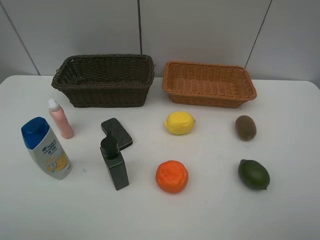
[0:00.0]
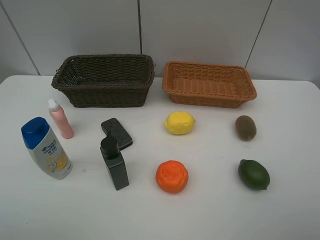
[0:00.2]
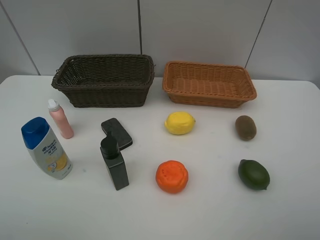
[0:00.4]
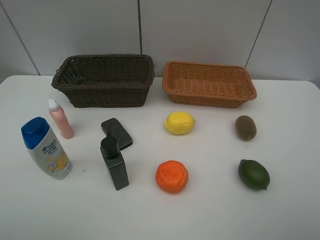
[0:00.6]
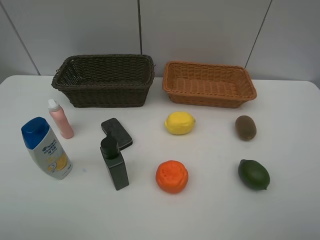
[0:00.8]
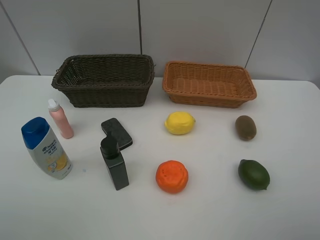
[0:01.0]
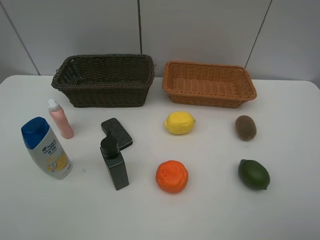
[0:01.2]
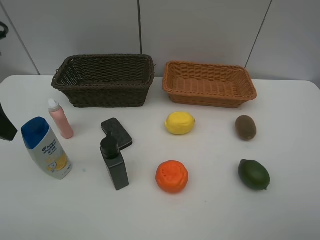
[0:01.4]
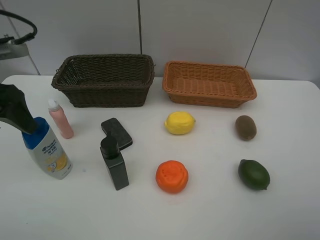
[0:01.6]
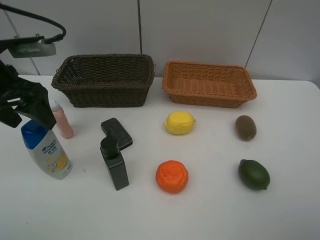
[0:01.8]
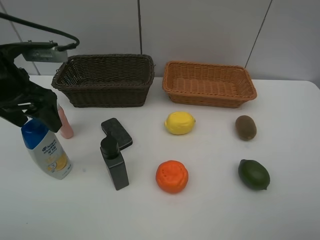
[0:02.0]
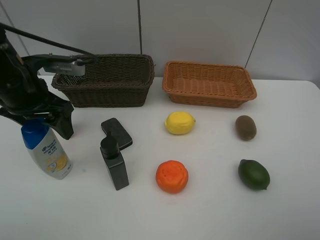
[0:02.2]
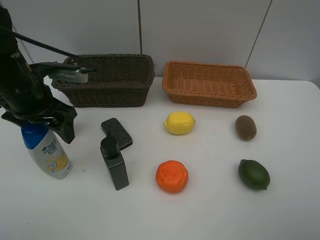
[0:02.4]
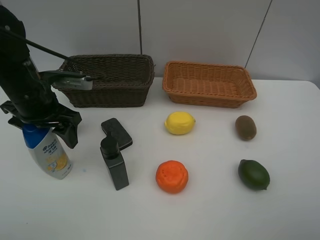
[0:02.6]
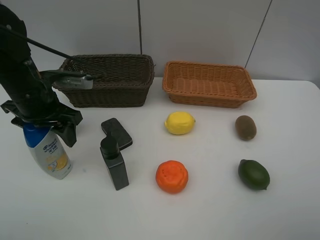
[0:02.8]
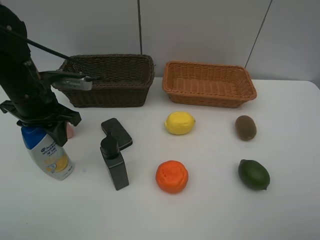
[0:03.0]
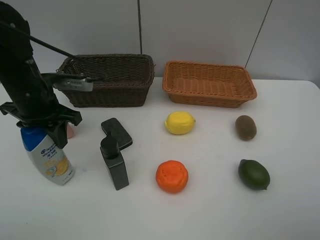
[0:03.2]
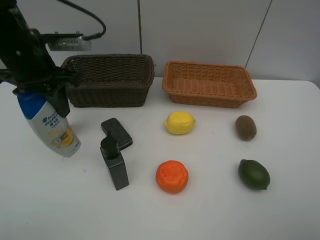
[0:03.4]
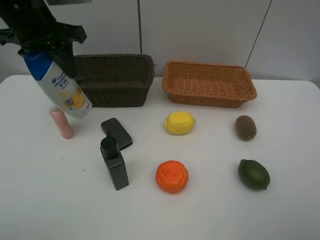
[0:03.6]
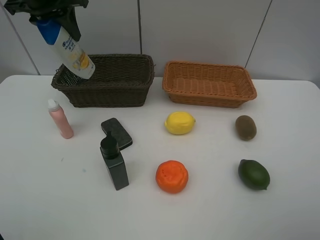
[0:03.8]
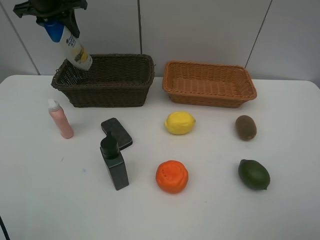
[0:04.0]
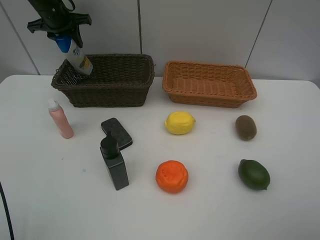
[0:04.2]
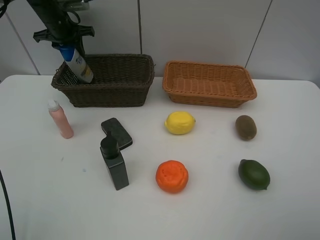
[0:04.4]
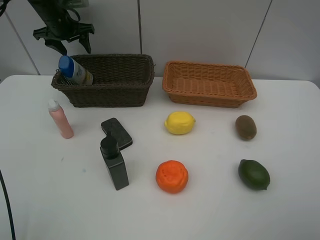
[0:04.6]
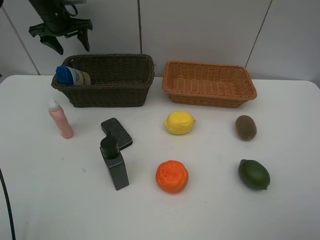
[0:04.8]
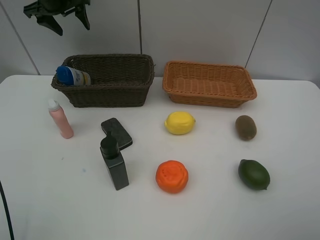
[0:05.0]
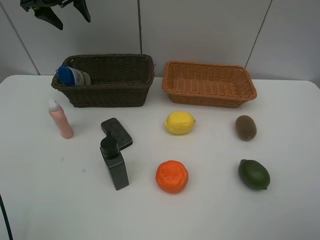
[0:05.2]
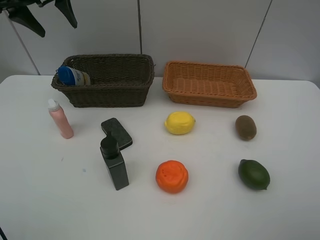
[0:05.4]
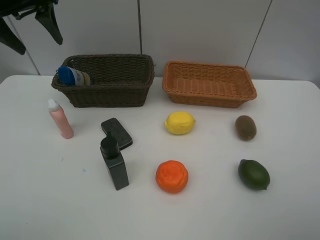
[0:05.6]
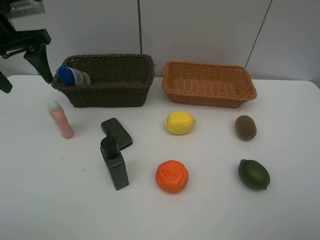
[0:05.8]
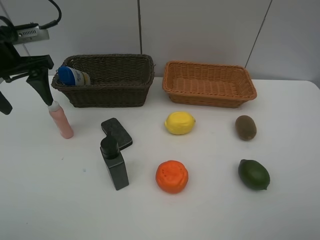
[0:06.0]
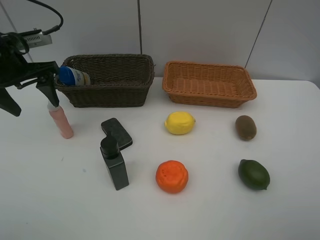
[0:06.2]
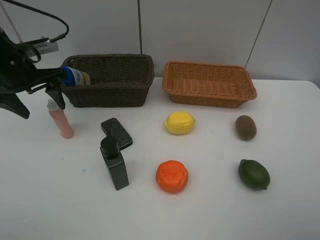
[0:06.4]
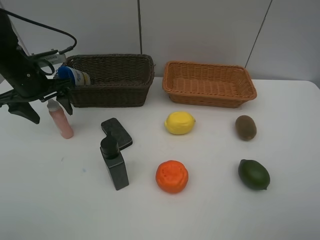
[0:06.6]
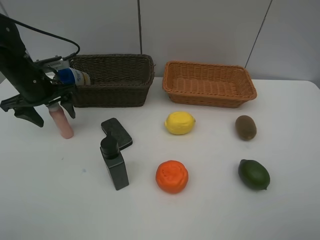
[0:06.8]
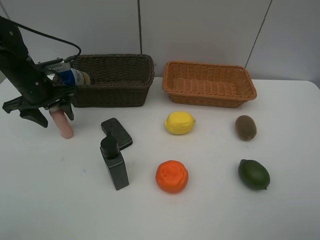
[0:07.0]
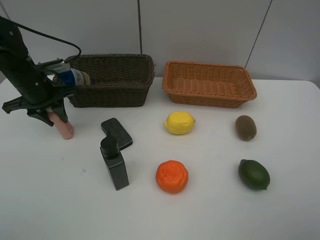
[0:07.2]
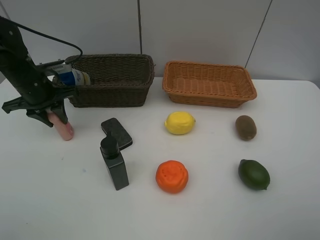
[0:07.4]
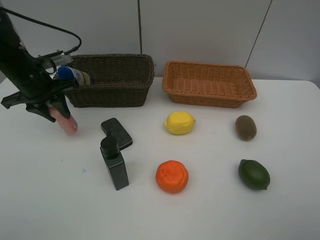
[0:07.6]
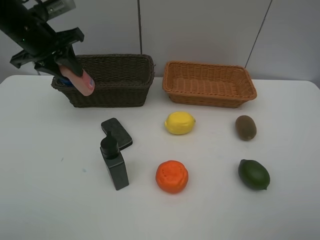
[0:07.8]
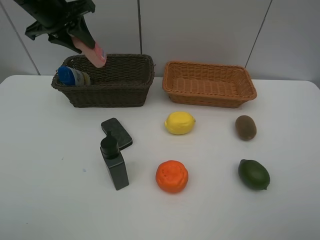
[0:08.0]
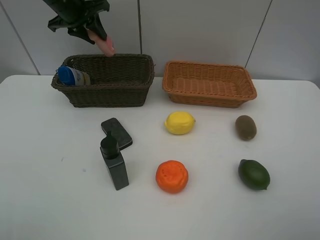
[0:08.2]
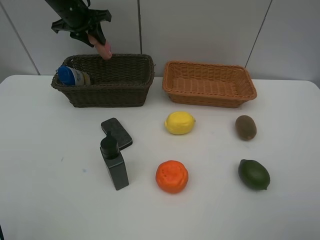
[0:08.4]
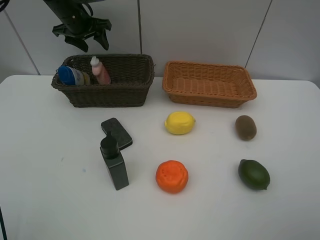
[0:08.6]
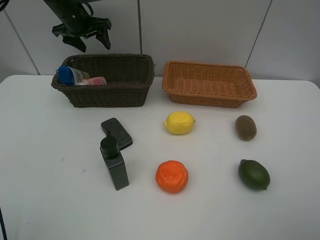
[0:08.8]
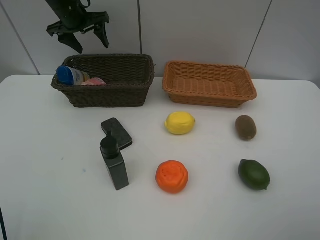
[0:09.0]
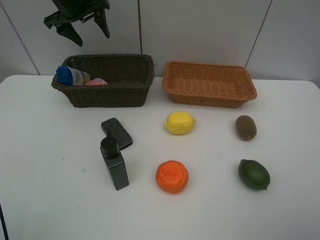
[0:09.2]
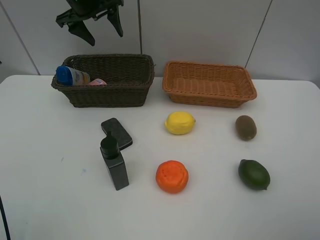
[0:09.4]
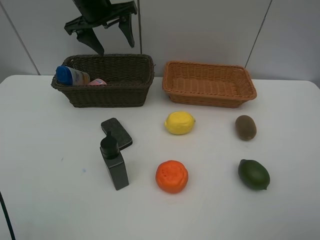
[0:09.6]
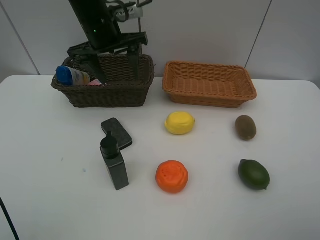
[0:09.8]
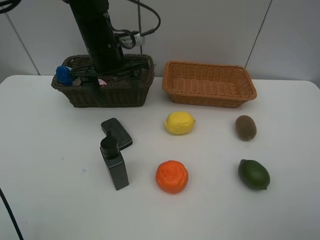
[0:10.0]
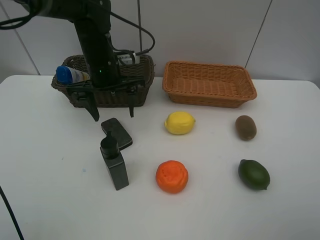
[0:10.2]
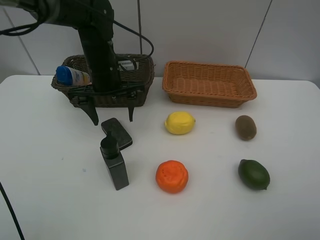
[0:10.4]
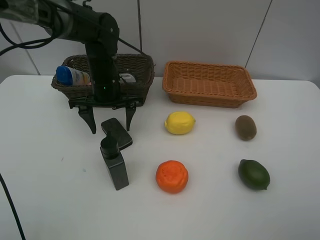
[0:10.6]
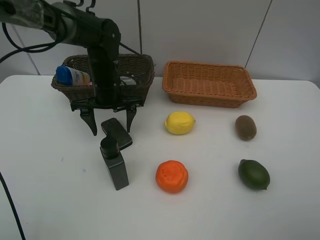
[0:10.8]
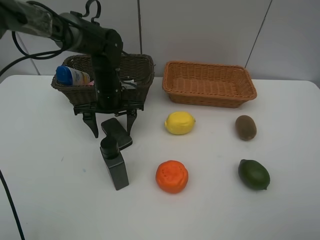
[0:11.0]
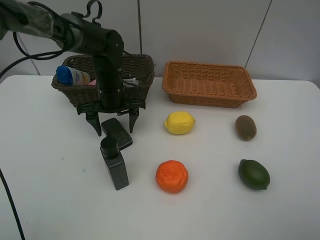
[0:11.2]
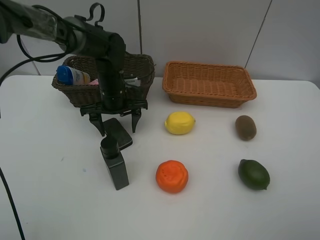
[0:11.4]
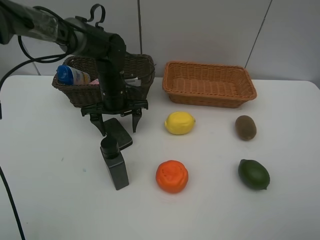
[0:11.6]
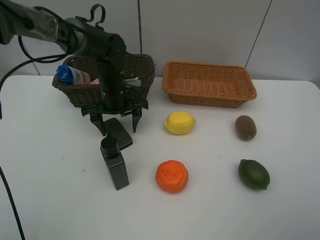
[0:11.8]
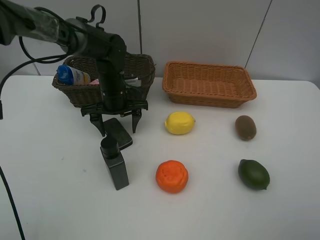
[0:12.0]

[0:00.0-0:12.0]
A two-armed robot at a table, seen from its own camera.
Task of the whole recording: Place multiple objects separately in different baskets.
Step, 0:00.0 to 0:03.2: Pick up the shampoo with left gripper.
Step, 0:03.4 to 0:04.8: Place the shampoo in the dark basket with left gripper.
Step, 0:05.0 to 0:07.6: Pick up the laundry detergent with left gripper.
Step, 0:07.8 to 0:08.8: Place the laundry detergent in the dark basket with left gripper.
0:00.0 to 0:01.6: The left gripper is displaced forward by approximately 25 cm.
0:01.6 to 0:03.0: The left gripper moves downward and to the right, roughly 10 cm, and closes.
0:03.0 to 0:04.4: The left gripper goes roughly 25 cm forward.
0:04.4 to 0:06.0: The left gripper moves backward, some 25 cm, and opens up.
0:06.0 to 0:07.6: The left gripper goes some 5 cm downward, and closes its fingers.
0:07.6 to 0:09.0: The left gripper goes approximately 20 cm forward and upward, and opens up.
0:09.0 to 0:10.4: The left gripper is displaced backward, to the right and downward by some 20 cm.
0:10.4 to 0:12.0: The left gripper is displaced downward by some 5 cm.

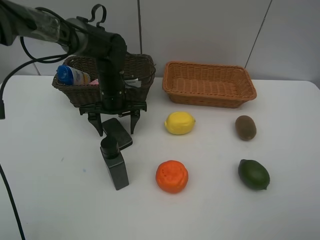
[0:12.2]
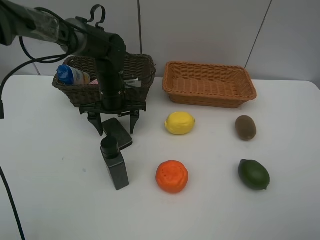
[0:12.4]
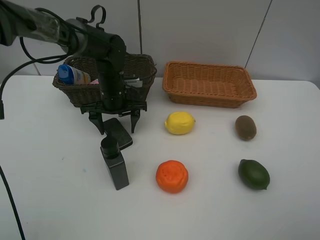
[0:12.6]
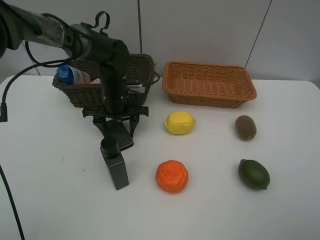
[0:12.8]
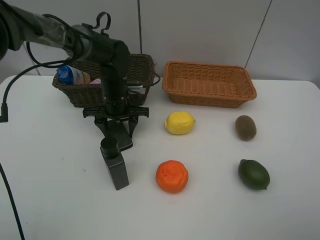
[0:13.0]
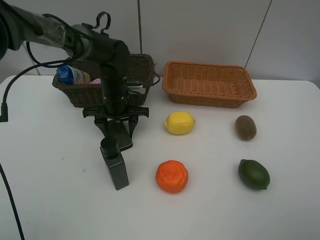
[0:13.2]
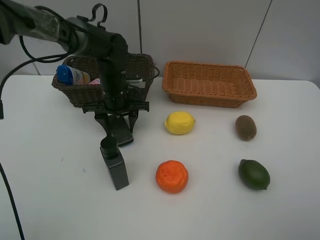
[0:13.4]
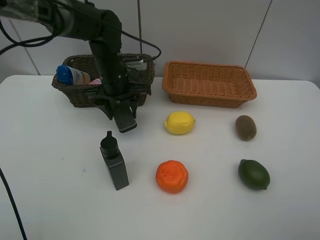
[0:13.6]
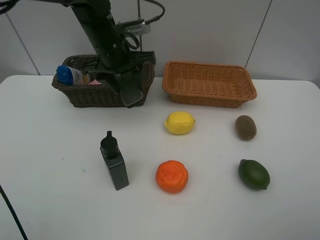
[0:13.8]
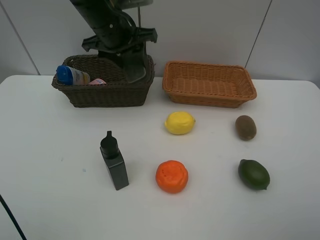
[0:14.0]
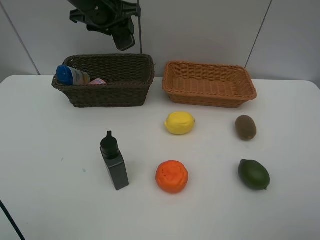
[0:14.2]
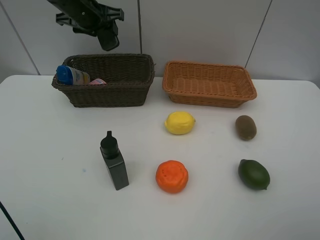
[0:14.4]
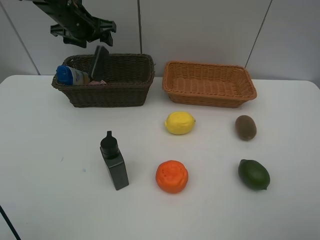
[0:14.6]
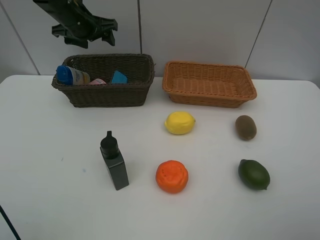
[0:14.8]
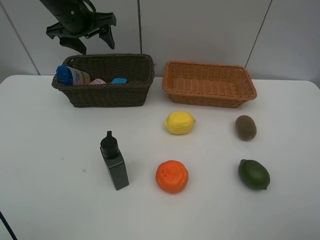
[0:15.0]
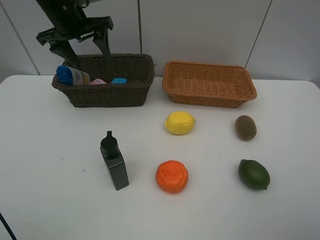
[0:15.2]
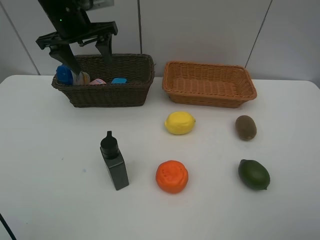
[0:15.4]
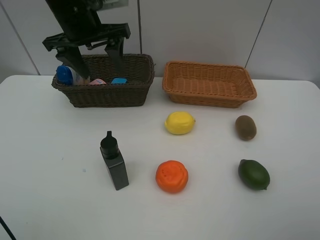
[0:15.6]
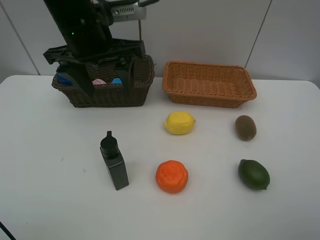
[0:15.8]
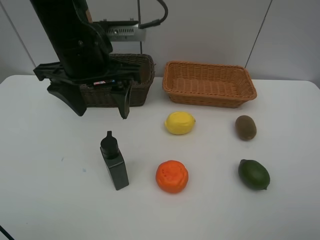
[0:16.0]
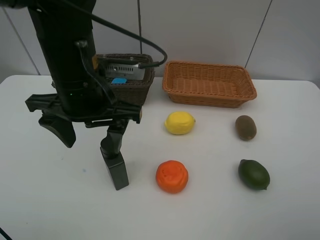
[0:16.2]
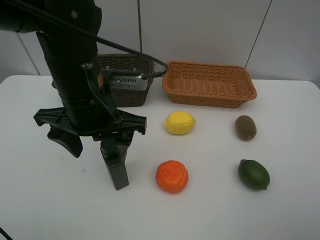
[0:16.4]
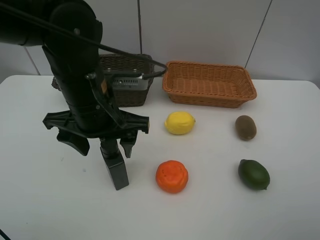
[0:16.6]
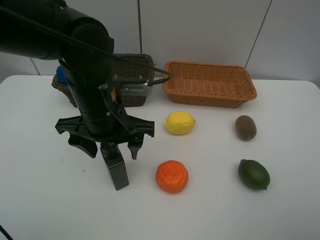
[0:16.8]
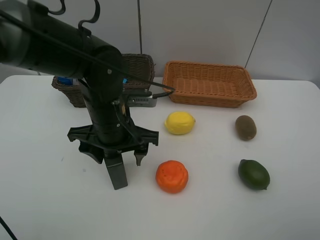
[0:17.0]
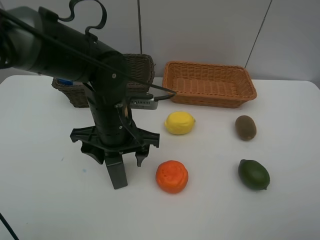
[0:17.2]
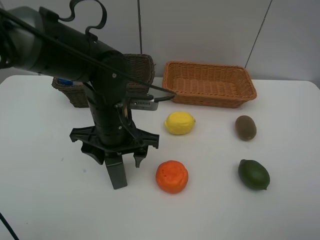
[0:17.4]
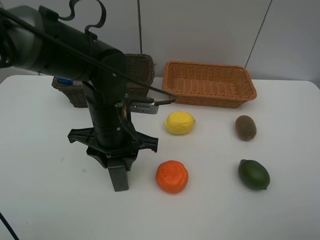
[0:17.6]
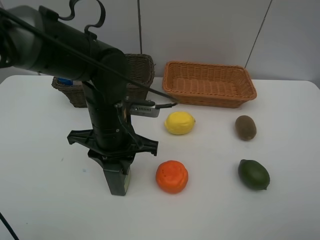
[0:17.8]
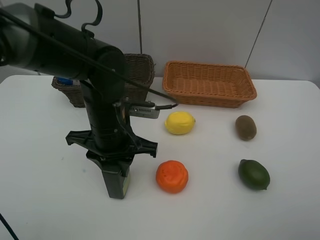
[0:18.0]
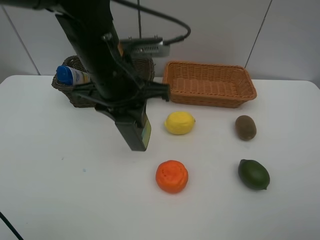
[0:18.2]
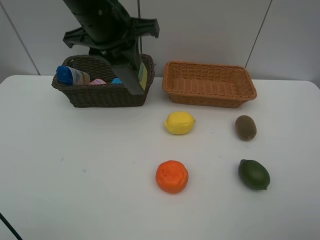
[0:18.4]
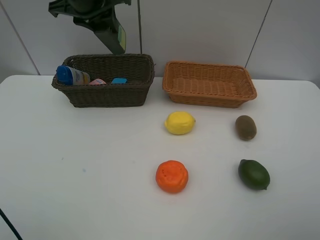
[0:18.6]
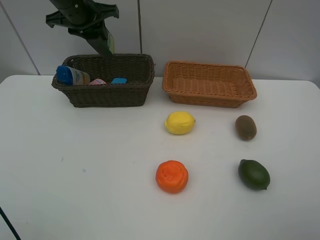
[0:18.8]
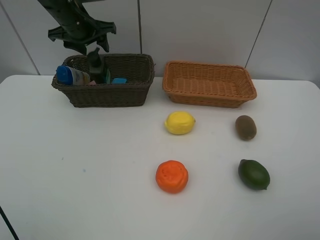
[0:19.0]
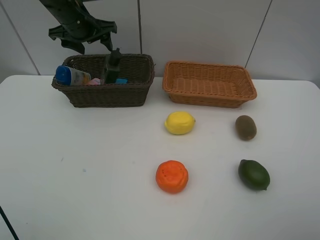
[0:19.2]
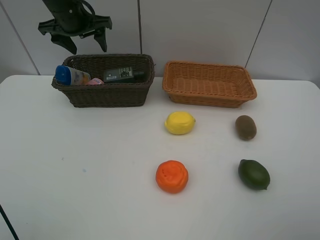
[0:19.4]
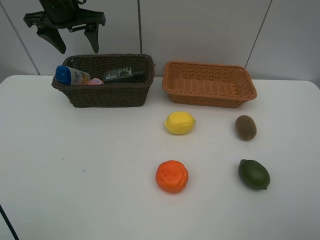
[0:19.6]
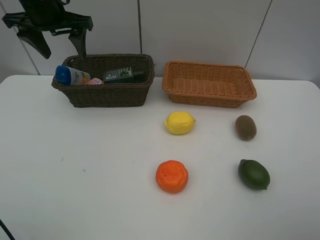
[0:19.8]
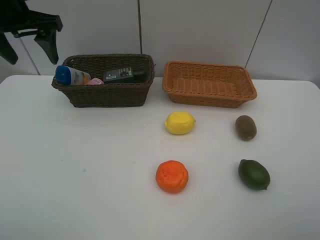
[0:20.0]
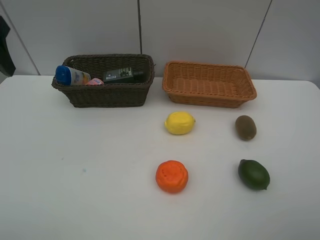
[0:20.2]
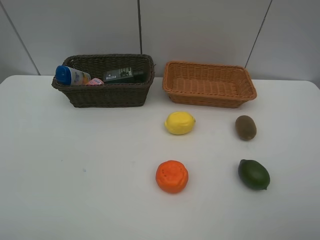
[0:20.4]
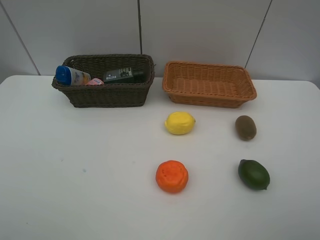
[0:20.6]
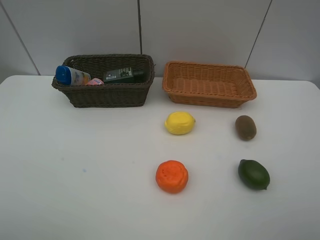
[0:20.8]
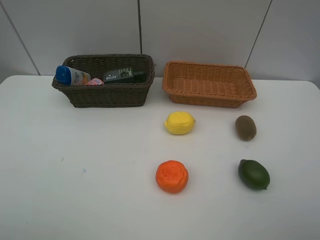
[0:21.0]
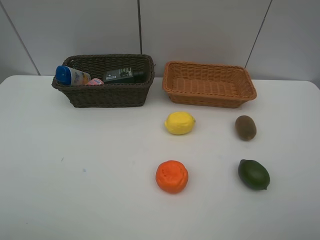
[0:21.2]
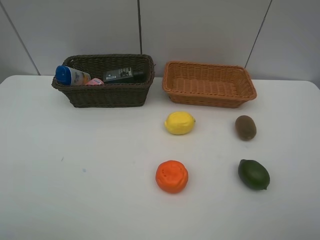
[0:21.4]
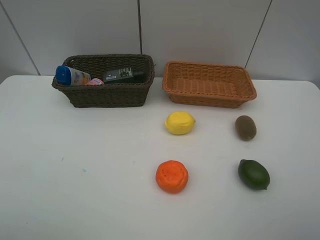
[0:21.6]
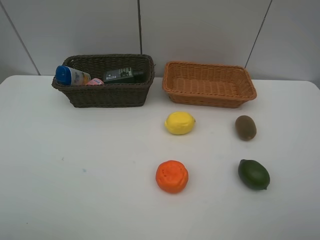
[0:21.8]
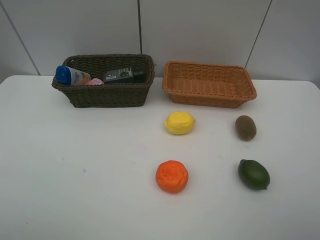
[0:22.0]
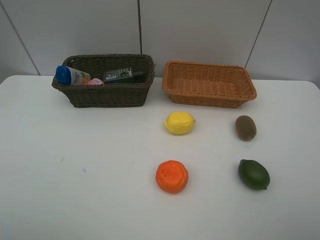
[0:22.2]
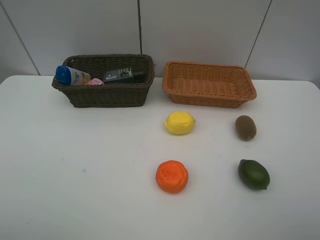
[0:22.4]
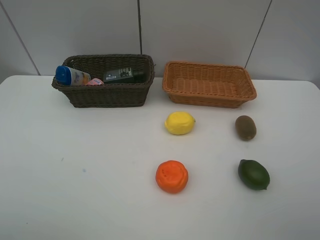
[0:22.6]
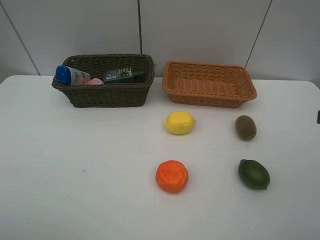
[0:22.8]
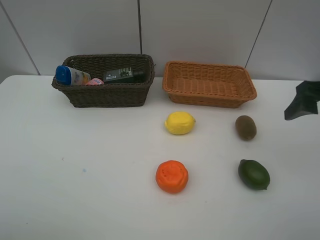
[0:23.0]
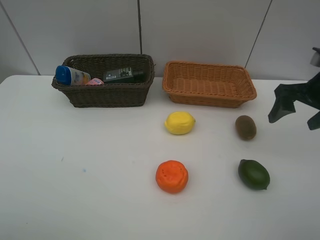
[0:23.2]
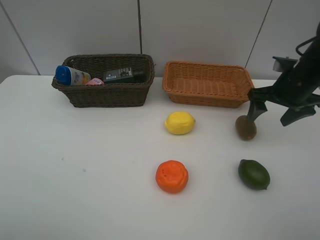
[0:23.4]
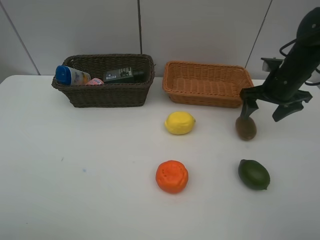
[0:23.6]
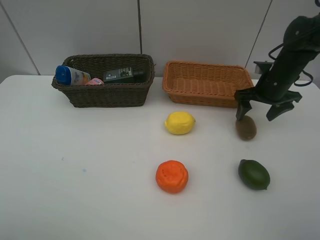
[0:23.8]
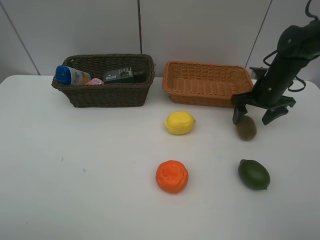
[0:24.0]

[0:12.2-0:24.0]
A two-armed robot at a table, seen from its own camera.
Task of the whole recording: Place multiple objects separately in different baskets.
Step, 0:13.6 to 0:14.8: Place the blackboard eraser in the dark basket with left gripper.
Step, 0:15.0 to 0:18.0: Pick up the hard facial cleanser with left gripper.
Step, 0:18.2 to 0:19.2: Place the hard facial cleanser in the dark basket with left gripper.
0:12.2 to 0:13.6: The left gripper goes approximately 5 cm upward, and closes.
0:13.6 to 0:15.2: The left gripper moves upward and to the left, some 15 cm, and opens.
0:15.2 to 0:16.6: The left gripper moves backward and to the right, some 20 cm.
0:16.6 to 0:18.2: The left gripper heads upward, covering some 5 cm, and closes.
0:18.2 to 0:19.6: The left gripper shifts about 20 cm forward and to the left, and opens.
0:19.6 to 0:21.0: The left gripper travels backward by roughly 40 cm.
0:22.6 to 0:24.0: The right gripper goes roughly 35 cm forward and downward.
